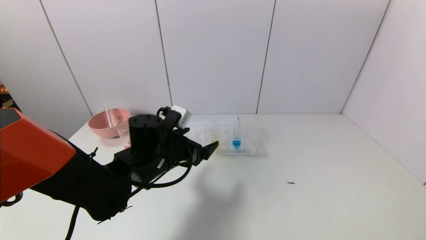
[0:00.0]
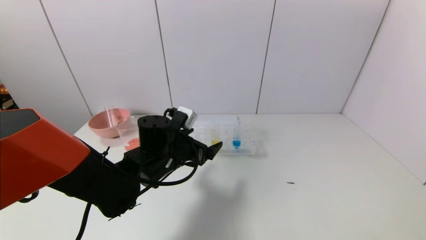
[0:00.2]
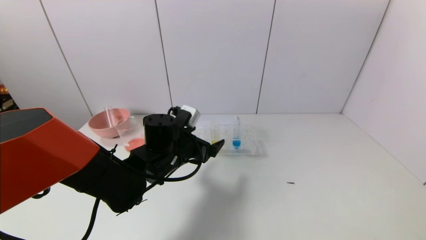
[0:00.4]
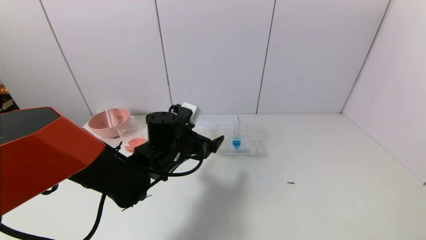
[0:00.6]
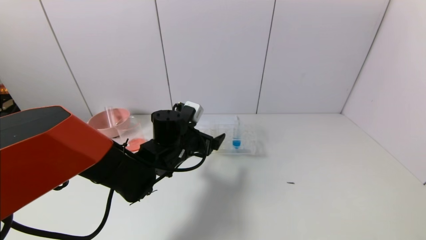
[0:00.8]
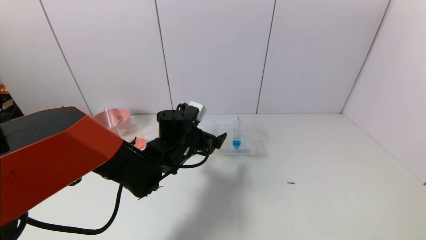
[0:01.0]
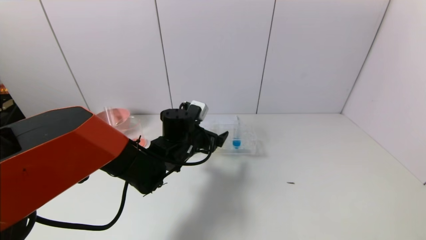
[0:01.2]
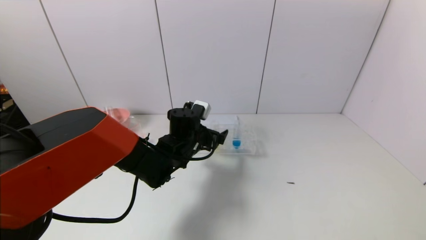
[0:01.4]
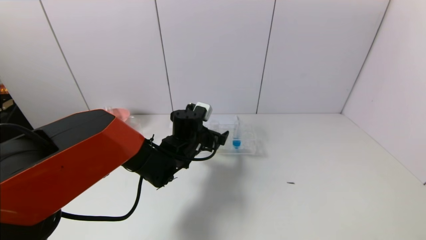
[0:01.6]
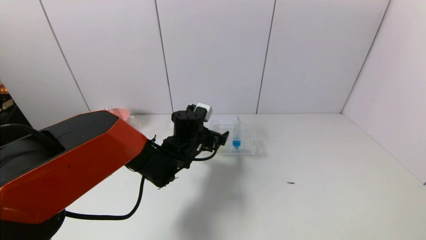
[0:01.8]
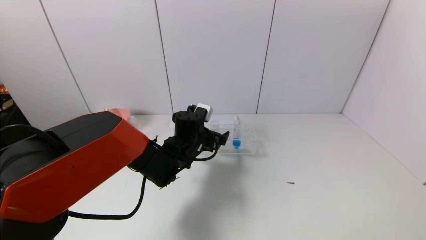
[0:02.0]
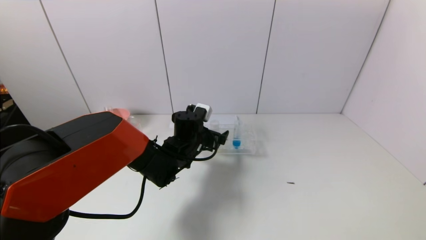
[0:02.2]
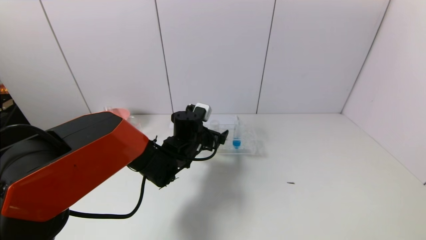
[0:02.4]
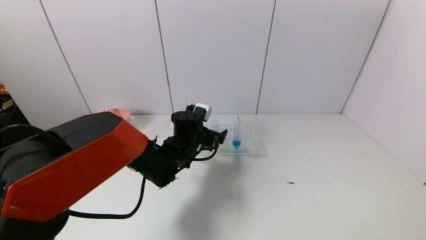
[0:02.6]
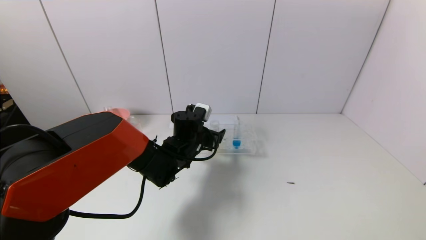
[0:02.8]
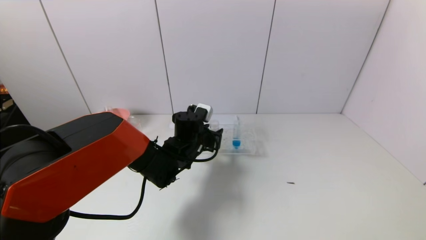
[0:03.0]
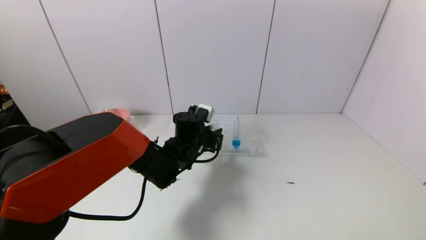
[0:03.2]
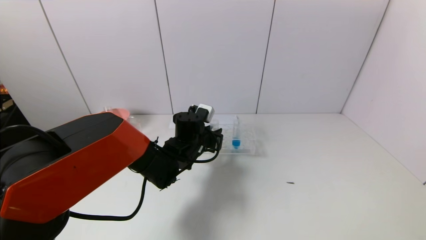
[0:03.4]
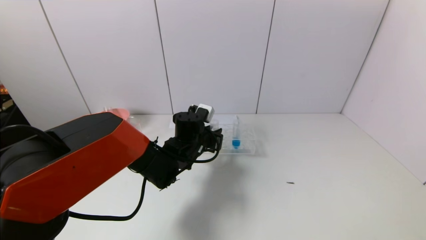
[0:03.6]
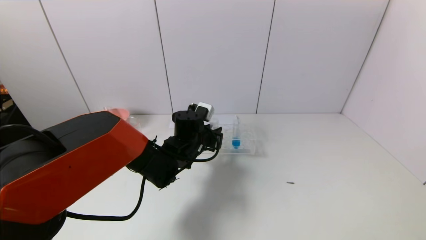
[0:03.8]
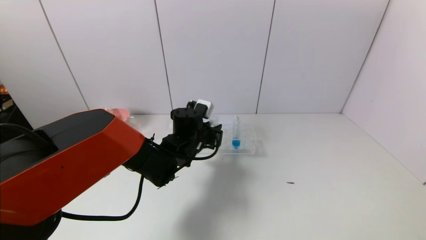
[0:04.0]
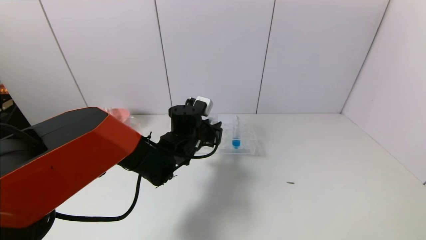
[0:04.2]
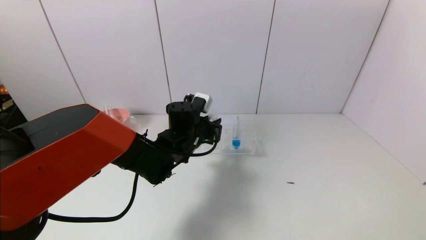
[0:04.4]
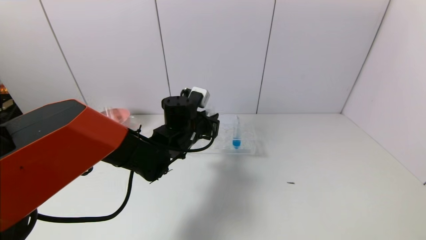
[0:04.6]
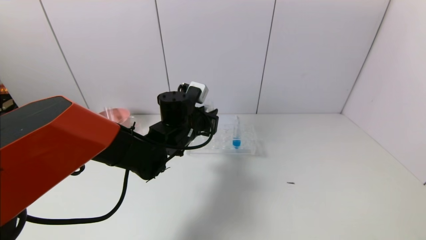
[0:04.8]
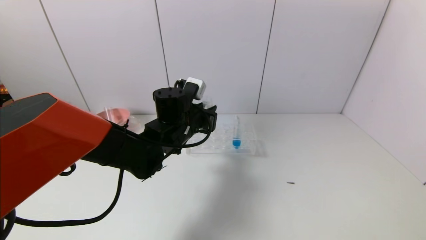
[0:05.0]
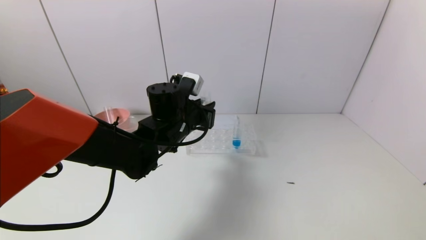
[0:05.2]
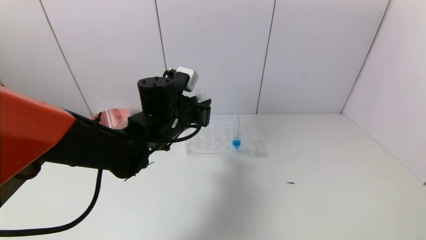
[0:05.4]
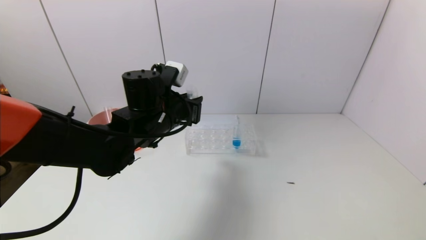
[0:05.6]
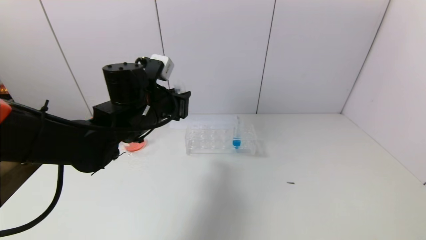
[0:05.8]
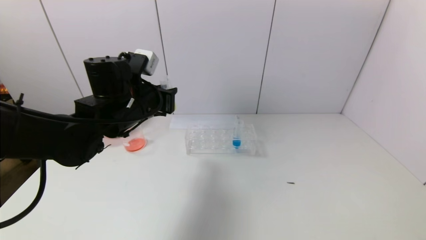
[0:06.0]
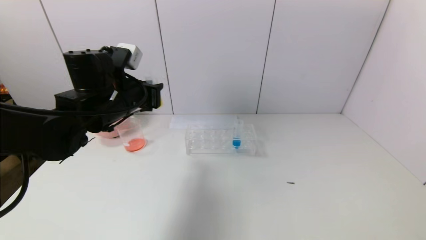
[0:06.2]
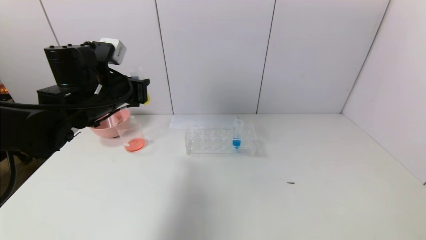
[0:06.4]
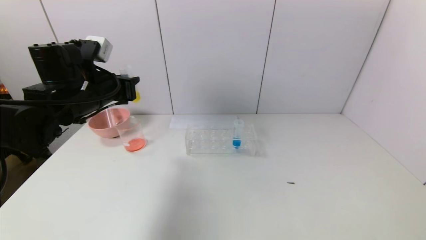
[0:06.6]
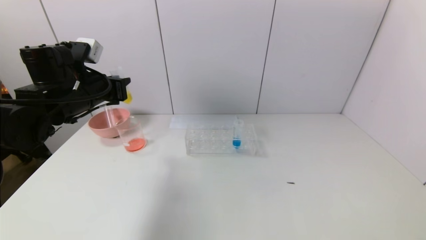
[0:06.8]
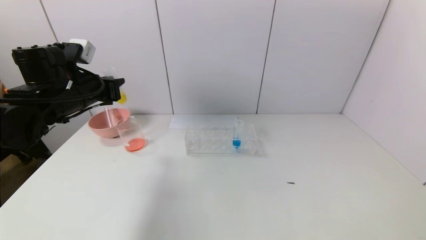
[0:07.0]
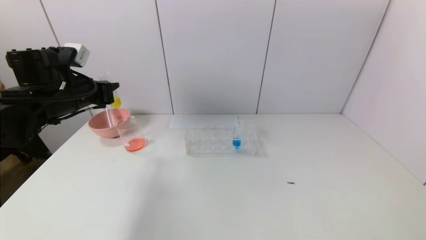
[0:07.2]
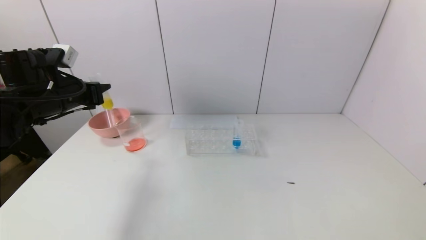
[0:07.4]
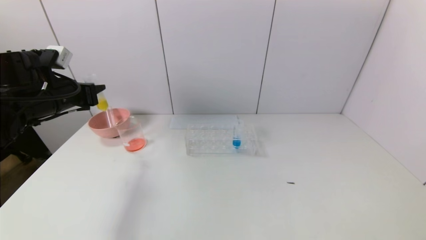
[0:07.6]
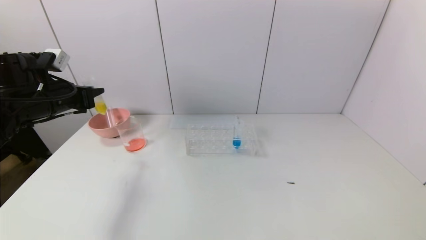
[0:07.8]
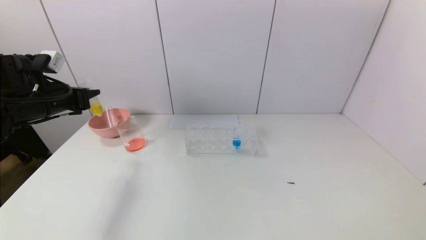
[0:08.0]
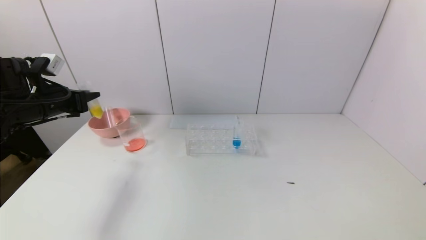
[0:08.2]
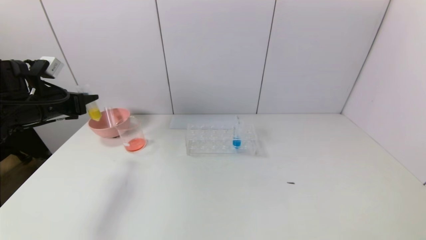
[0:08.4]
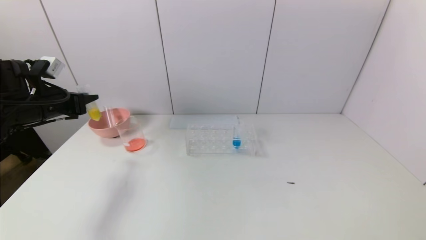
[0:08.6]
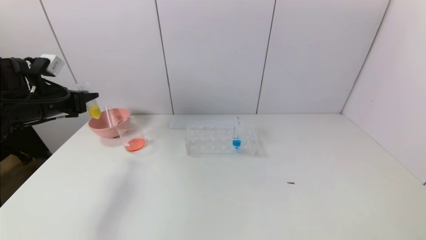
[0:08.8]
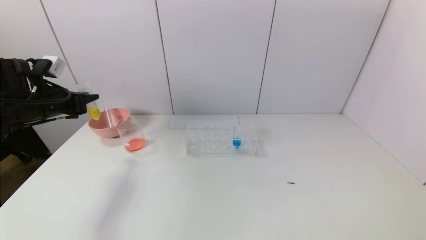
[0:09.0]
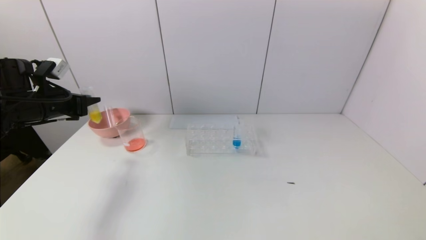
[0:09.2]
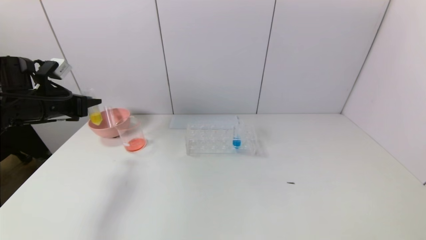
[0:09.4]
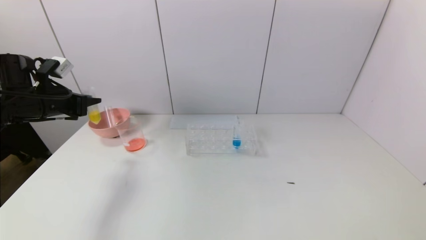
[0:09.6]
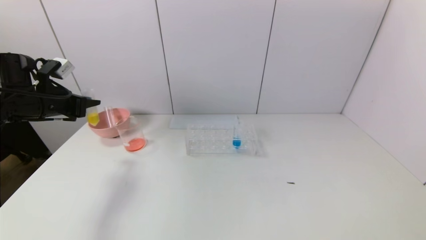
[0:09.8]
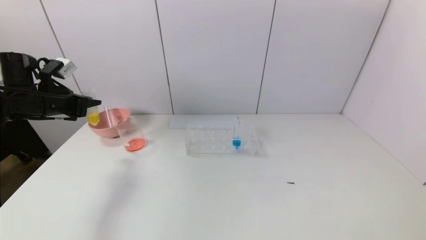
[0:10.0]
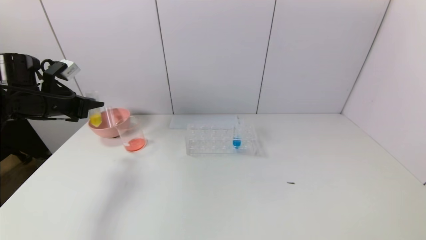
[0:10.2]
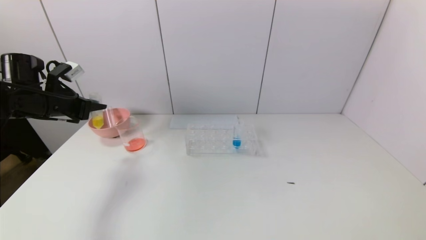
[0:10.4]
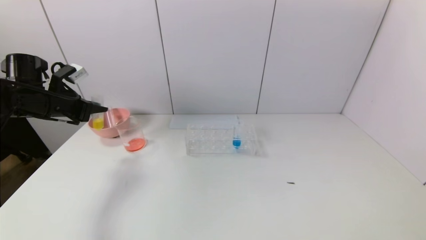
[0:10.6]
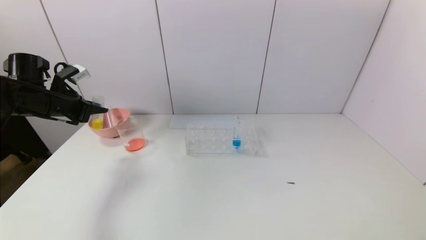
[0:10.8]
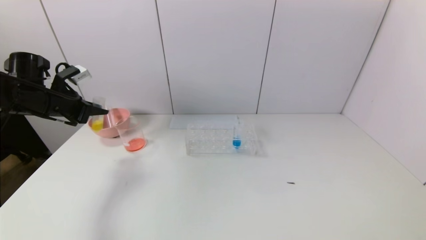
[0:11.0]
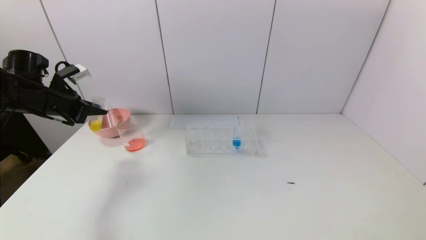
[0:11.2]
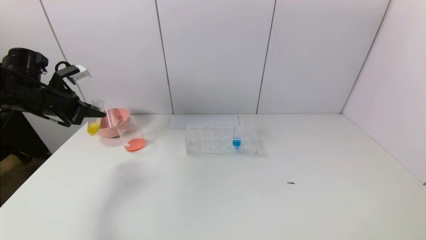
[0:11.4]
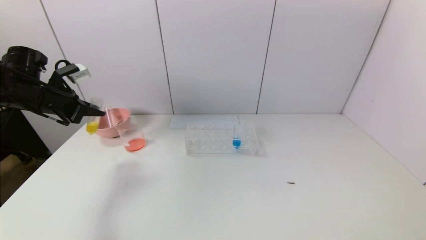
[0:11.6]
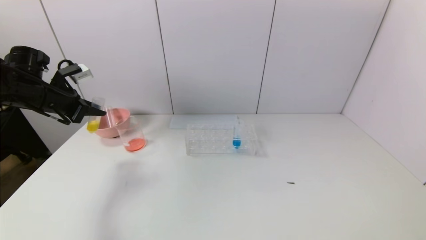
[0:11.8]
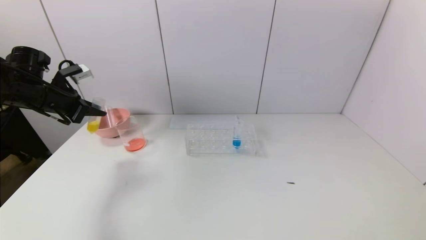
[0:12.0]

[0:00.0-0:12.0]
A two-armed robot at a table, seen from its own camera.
Task of the whole recording: pick up the test tube with yellow pigment and the test tube with red pigment by grippers and pour them into the beaker.
Step, 0:00.0 to 0:03.6: Grasp the yellow reagent with the left gripper.
0:00.0 to 0:01.6: The left gripper is displaced forward and to the right by approximately 10 cm.
0:01.6 to 0:03.0: The left gripper closes its fingers.
0:03.0 to 0:04.4: The grippers make only small movements.
0:04.4 to 0:06.0: The left gripper travels to the left and upward by approximately 15 cm.
0:06.0 to 0:07.6: The left gripper travels to the left by about 15 cm.
0:07.6 to 0:09.0: There are only small adjustments of the grippers.
0:09.0 to 0:10.4: The grippers make only small movements.
0:10.4 to 0:12.0: There are only small adjustments of the grippers.

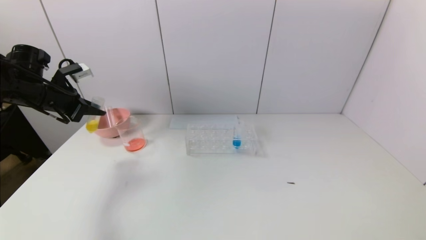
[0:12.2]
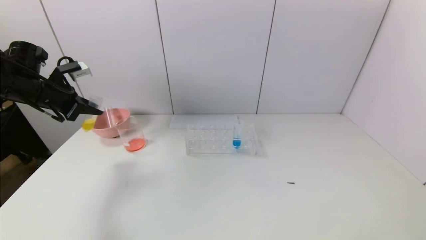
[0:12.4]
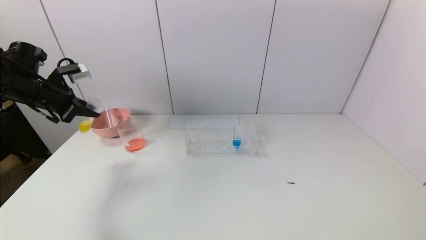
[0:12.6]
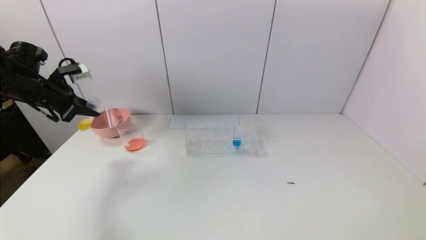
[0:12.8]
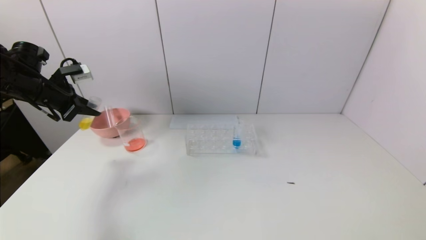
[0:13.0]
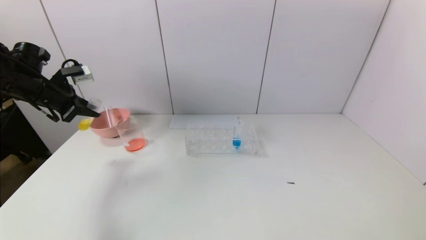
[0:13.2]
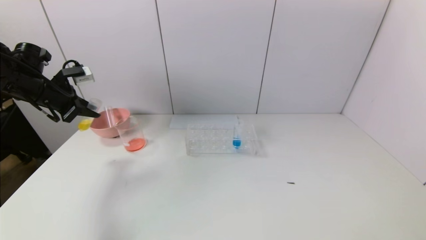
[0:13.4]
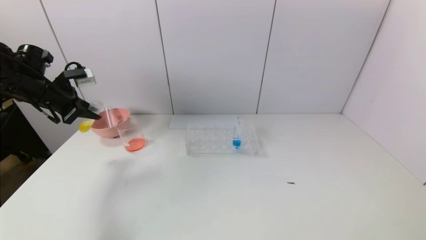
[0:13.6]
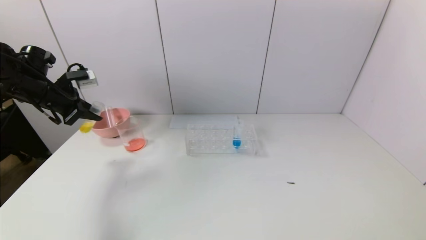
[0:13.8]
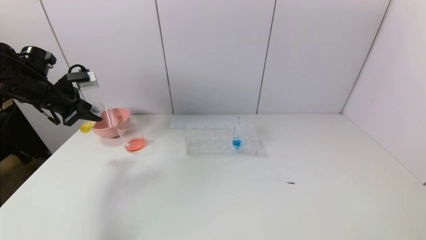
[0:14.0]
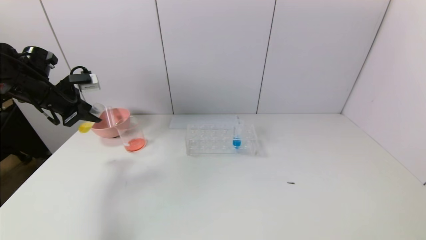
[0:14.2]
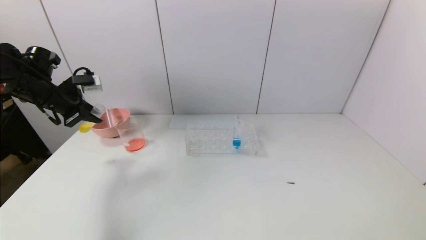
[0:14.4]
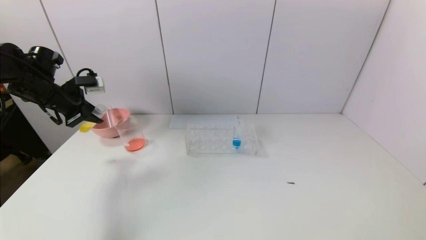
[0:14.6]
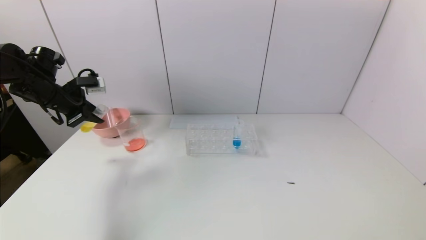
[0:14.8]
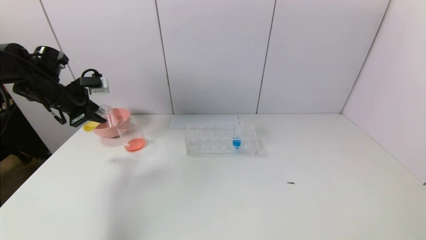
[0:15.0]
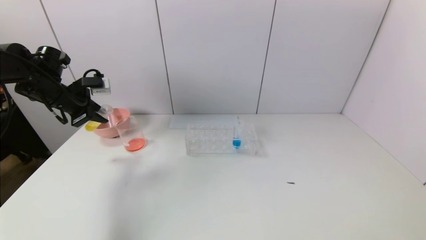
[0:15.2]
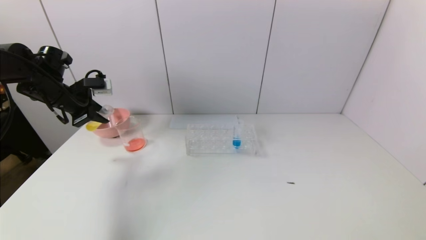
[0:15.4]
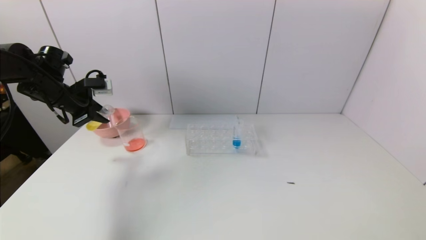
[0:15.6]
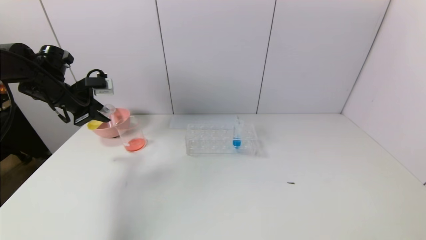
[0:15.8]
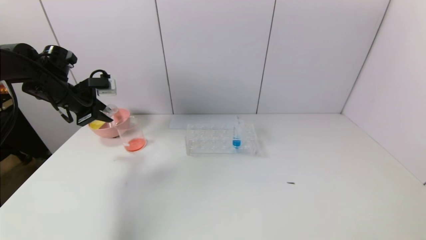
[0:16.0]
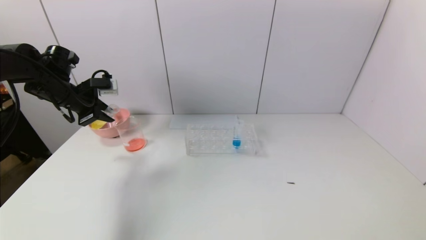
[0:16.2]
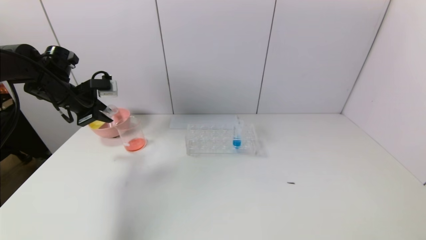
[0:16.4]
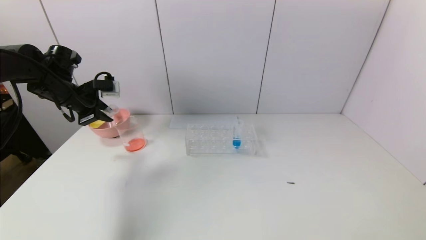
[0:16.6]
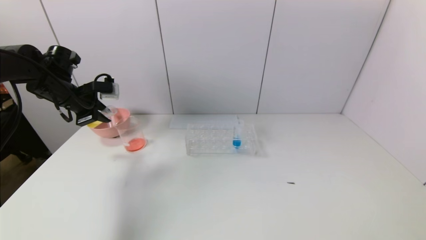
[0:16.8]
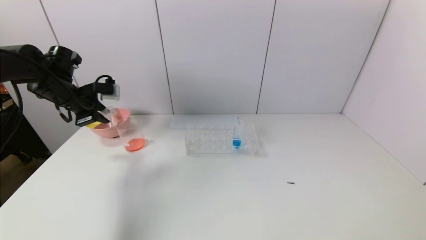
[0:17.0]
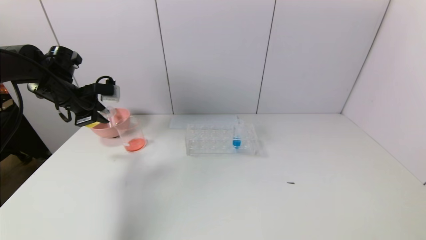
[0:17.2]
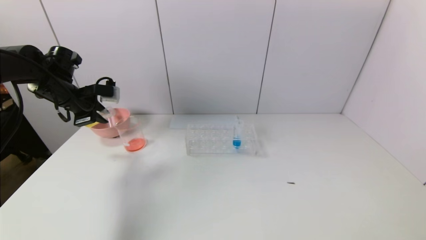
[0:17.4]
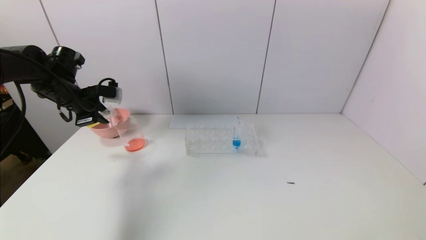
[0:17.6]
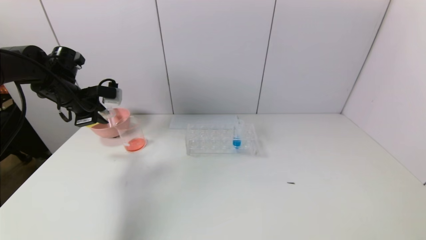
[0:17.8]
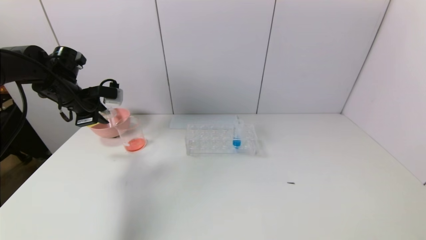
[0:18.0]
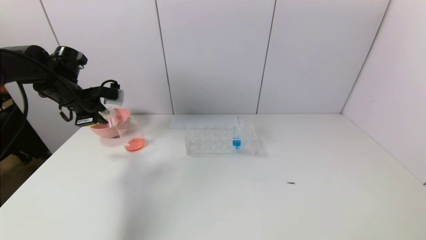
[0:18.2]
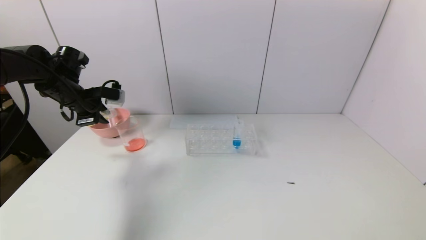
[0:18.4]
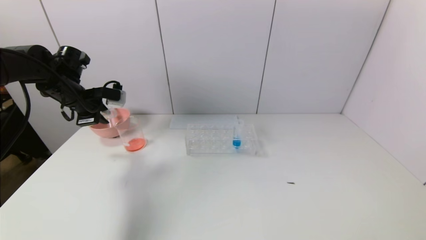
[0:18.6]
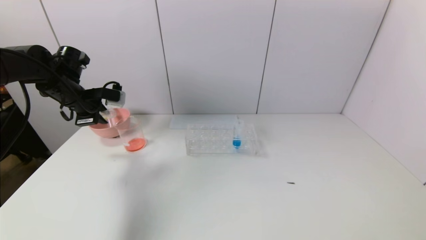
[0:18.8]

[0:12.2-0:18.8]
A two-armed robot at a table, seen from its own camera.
Task of the whole recording: pick up the test tube with yellow pigment and the test tube with red pigment by grippers and pour them into the beaker.
0:12.2 to 0:13.8: The grippers stay close to where they were, moving slightly.
0:13.8 to 0:15.4: The grippers make only small movements.
0:15.4 to 0:17.2: The grippers stay close to where they were, moving slightly.
0:17.2 to 0:18.8: The grippers move only a little.
